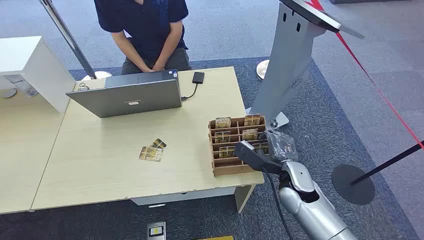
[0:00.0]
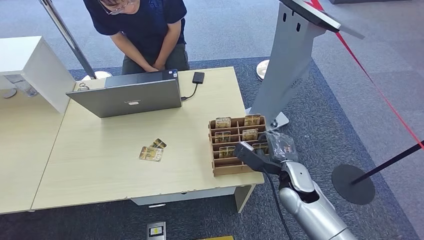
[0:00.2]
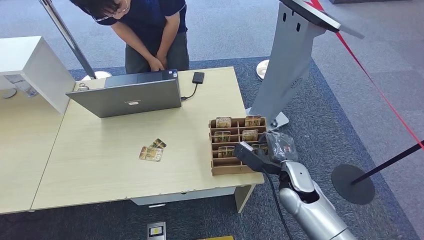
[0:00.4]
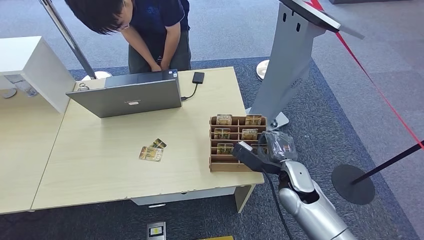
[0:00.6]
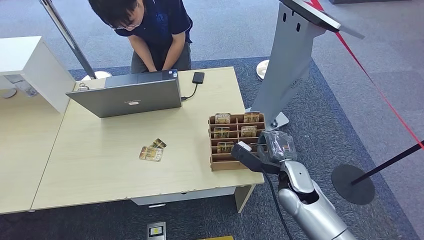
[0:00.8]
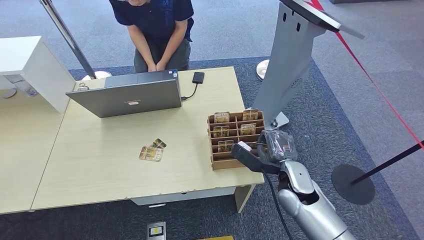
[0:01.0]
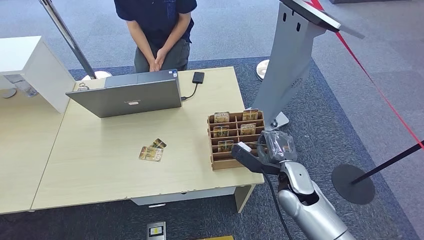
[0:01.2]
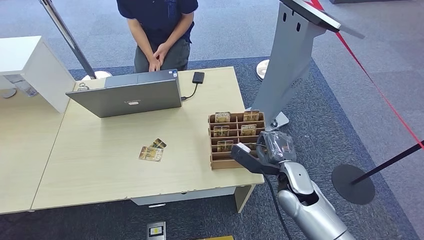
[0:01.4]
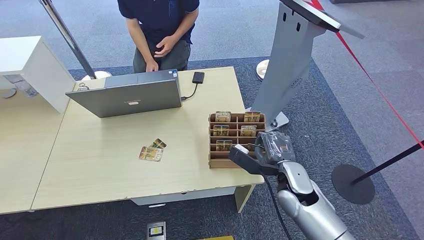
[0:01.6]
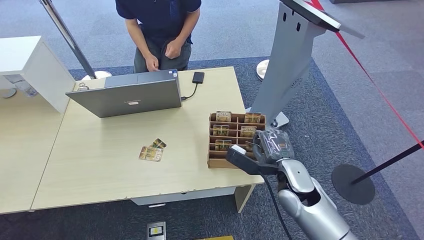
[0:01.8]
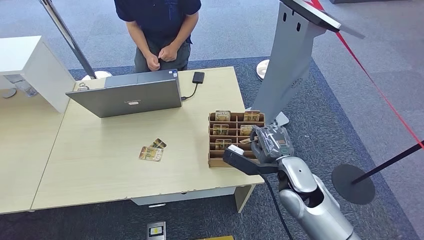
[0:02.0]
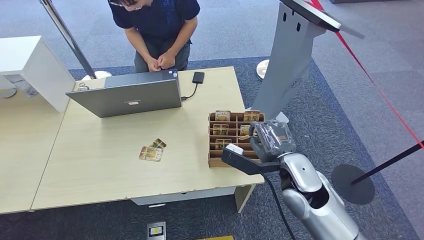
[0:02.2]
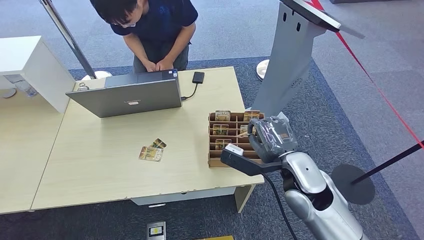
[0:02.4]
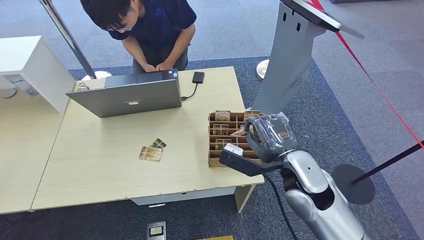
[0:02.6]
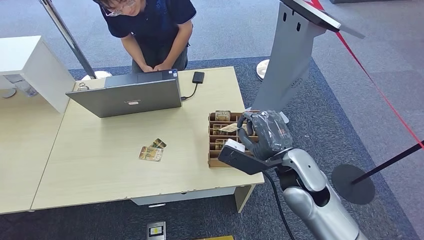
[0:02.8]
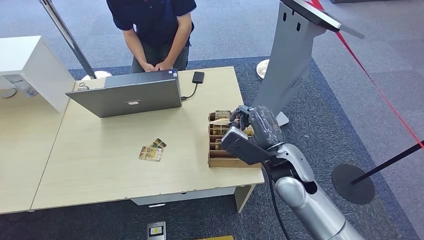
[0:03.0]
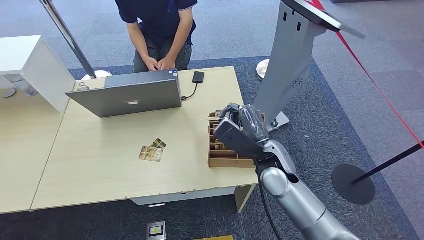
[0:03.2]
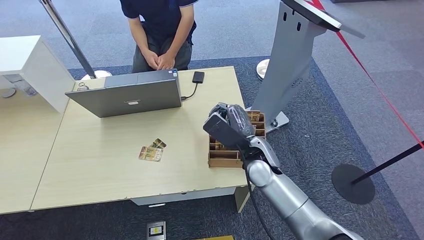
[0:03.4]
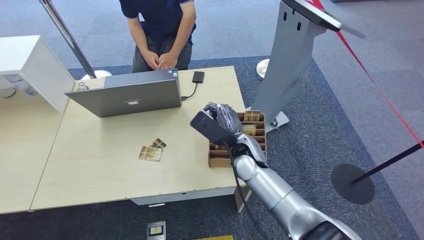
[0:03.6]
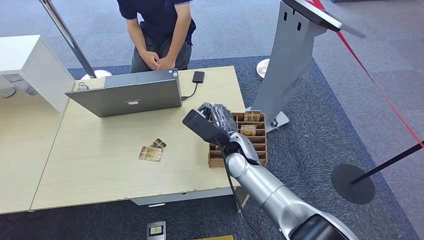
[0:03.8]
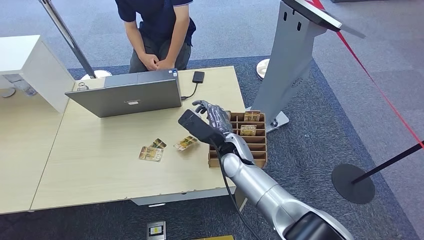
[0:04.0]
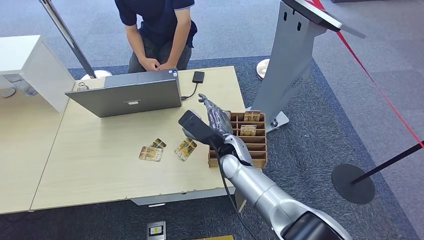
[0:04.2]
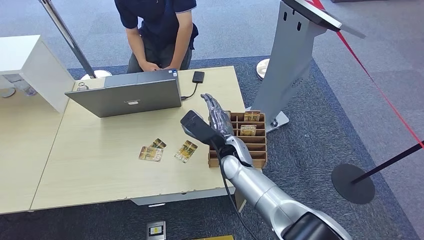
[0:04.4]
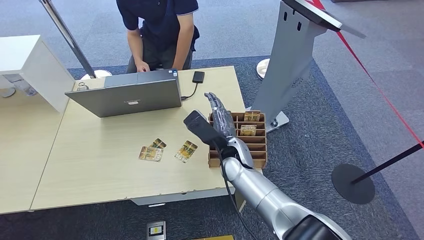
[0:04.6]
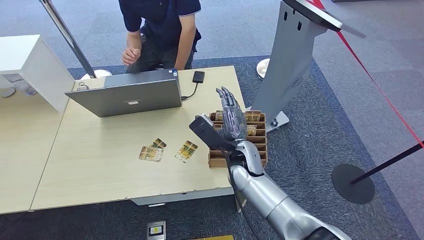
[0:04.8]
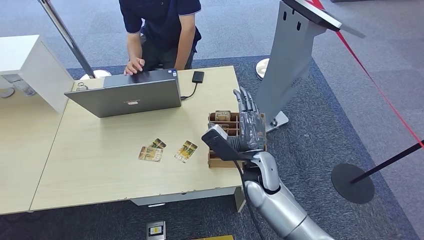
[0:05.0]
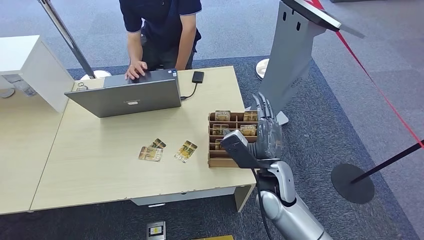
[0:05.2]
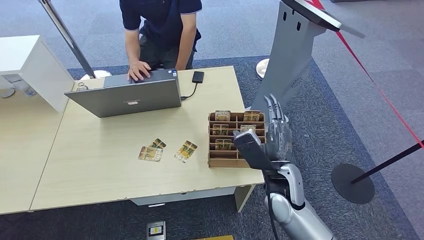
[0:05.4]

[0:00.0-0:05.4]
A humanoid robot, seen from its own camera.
Step, 0:00.0 to 0:03.0: Pick up the key card from the card box.
Step, 0:03.8 to 0:05.4: Hand the key card to the target.
0:01.4 to 0:02.8: The right hand travels upward by some 10 cm.
0:02.8 to 0:04.0: The right hand travels to the left, forward and downward by approximately 15 cm.
0:04.0 to 0:05.4: The right hand travels backward and to the right by approximately 15 cm.
